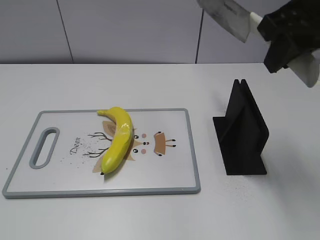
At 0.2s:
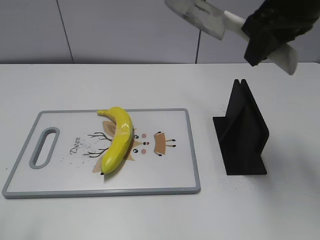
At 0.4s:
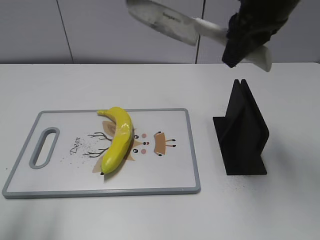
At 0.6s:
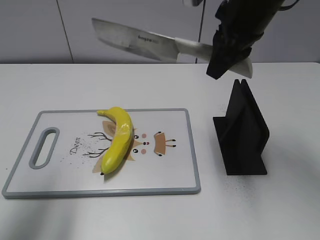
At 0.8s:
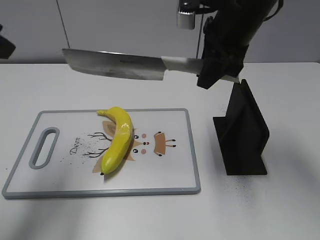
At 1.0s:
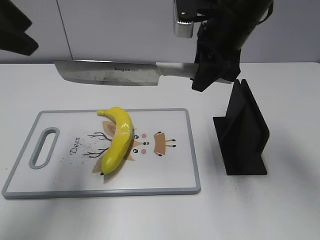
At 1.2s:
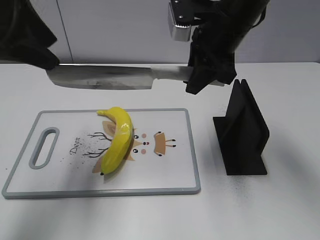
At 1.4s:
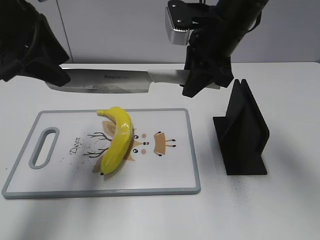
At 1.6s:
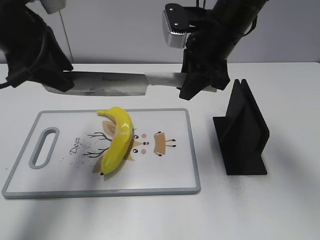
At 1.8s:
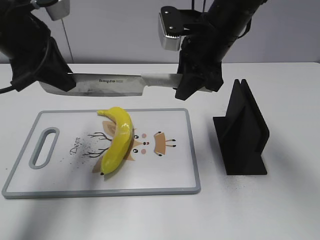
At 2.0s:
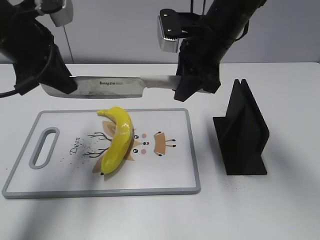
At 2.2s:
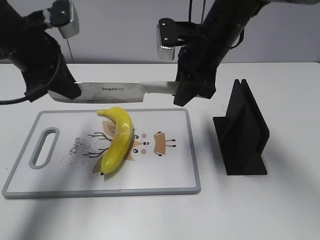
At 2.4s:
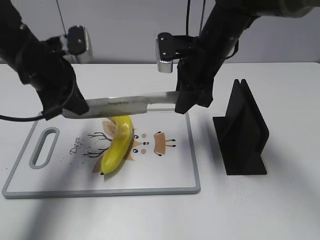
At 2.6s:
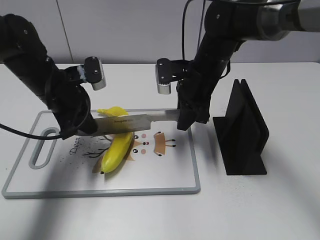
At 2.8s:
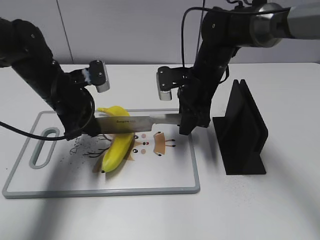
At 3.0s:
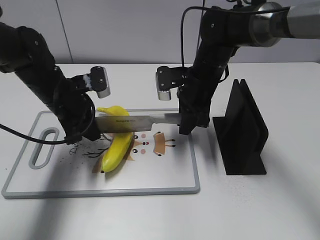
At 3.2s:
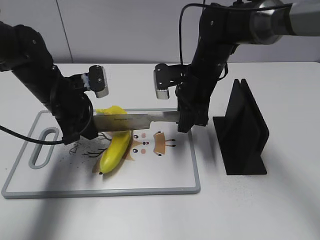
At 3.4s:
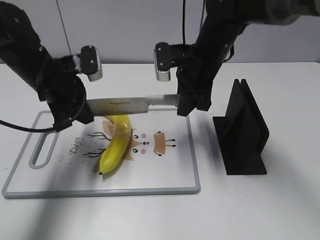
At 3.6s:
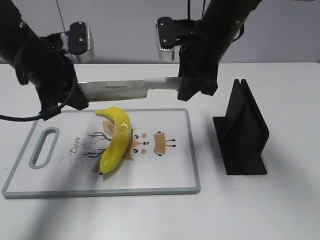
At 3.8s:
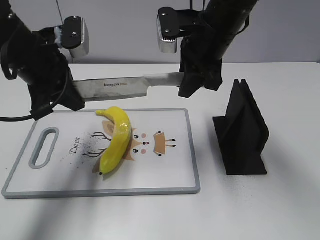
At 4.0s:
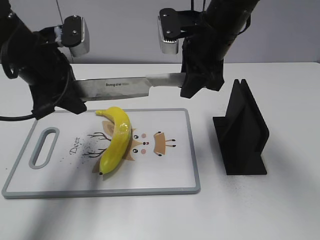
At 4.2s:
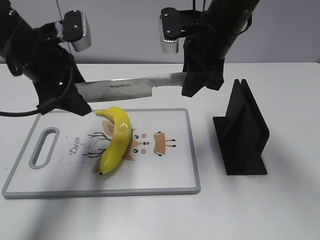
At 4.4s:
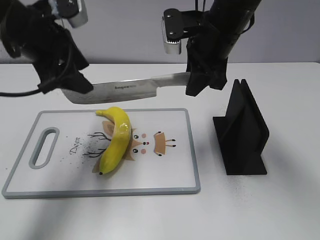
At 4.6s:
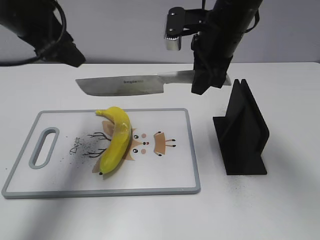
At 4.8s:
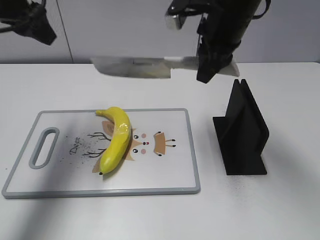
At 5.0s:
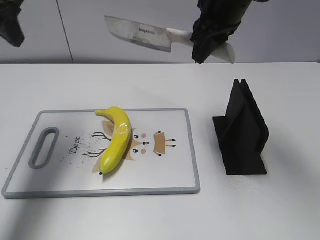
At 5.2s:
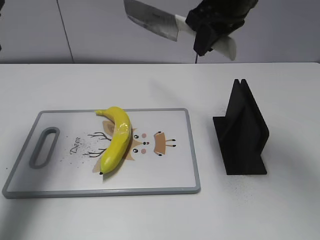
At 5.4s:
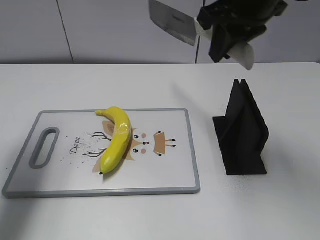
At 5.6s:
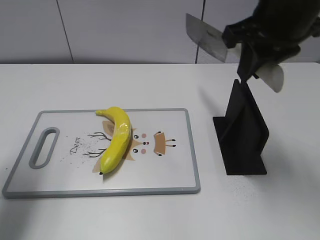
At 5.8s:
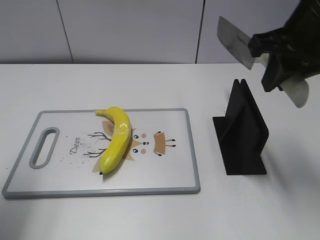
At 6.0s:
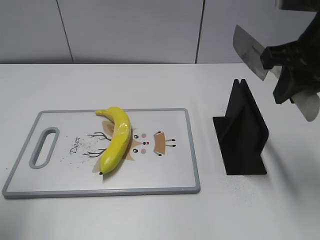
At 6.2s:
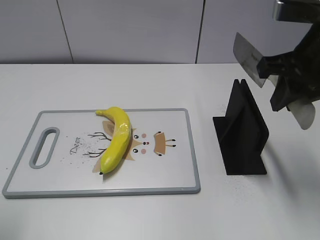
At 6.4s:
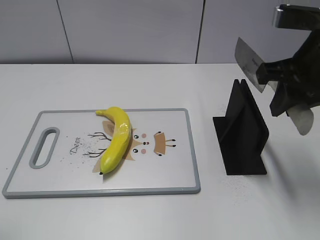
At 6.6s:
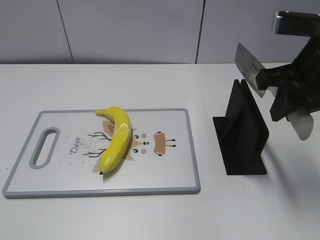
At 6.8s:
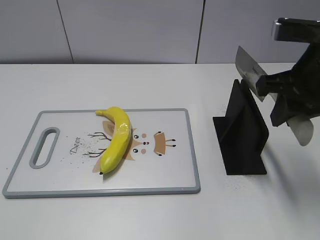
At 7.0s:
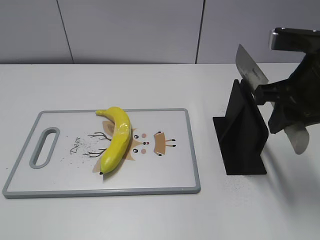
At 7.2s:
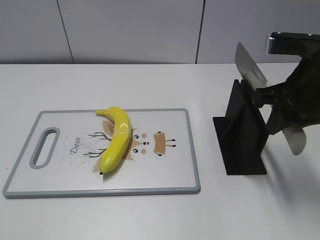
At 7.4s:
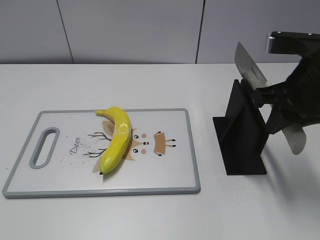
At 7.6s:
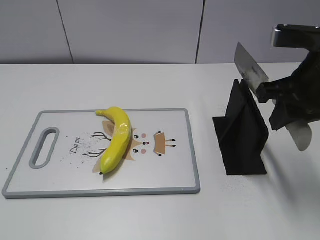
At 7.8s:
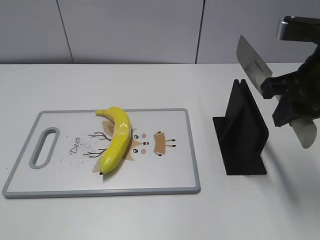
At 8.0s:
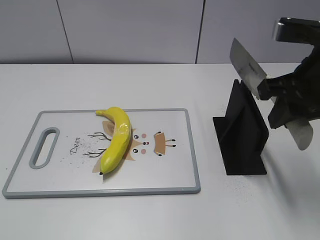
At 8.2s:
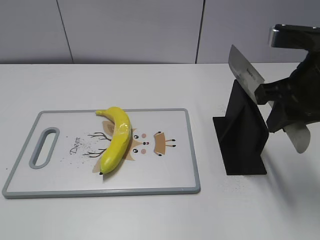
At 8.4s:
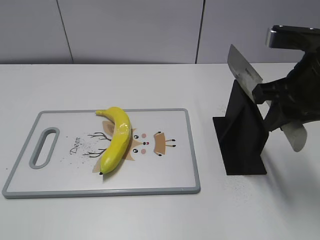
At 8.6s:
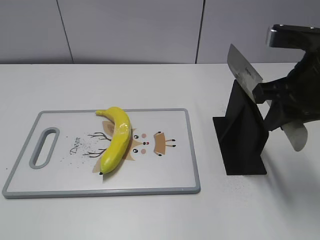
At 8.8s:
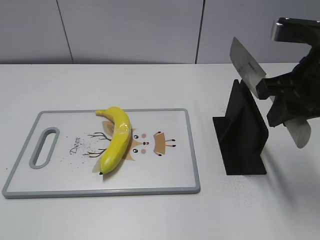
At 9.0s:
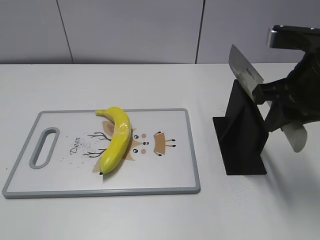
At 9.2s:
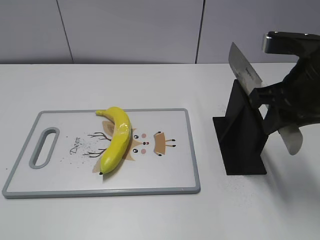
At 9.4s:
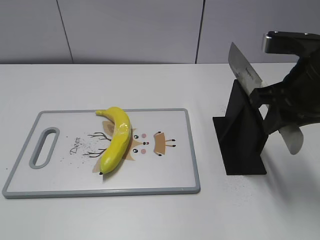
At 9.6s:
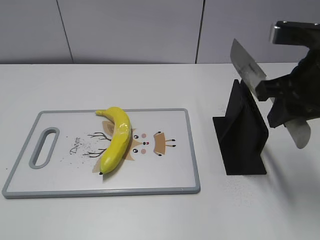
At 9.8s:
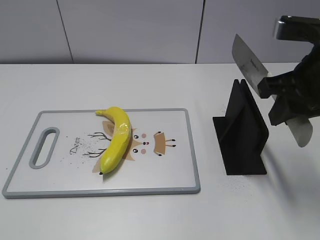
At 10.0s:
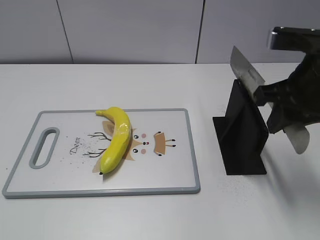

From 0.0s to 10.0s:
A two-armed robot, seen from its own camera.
Task of the whole recording: cut plastic banana.
Step, from 0.0s to 3.6s: Lift the knife with your right hand.
Step, from 3.8s to 5.0s: Cut the banana with your right hand.
Step, from 5.2s to 6.6s: Lift the knife with your right hand.
From 0.0s to 1.4s: The right gripper goes roughly 15 cm downward, forward and to the left, while the left gripper travels forward by about 30 cm.
From 1.4s to 2.8s: The grippers both shift downward by some 15 cm. The left gripper closes.
From 2.8s to 4.2s: The grippers both shift upward by some 10 cm. The left gripper opens up.
From 4.2s to 5.8s: The right gripper travels backward, to the right and upward by approximately 15 cm, while the left gripper moves to the left, backward and upward, about 20 cm.
From 5.8s to 7.2s: The left gripper goes roughly 20 cm backward, while the right gripper shifts some 5 cm downward.
From 7.2s to 8.6s: There are only small adjustments of the grippers.
From 8.6s to 10.0s: The two grippers keep their place.

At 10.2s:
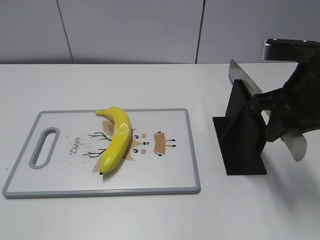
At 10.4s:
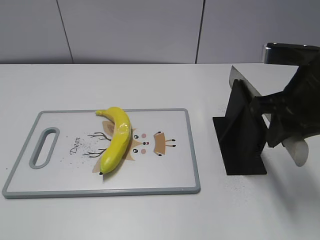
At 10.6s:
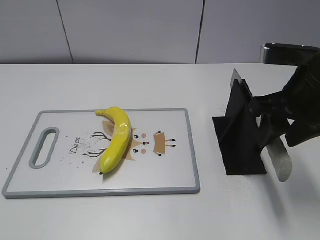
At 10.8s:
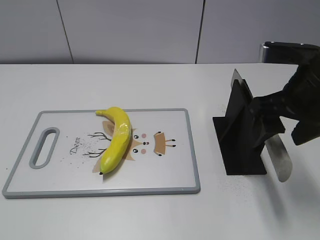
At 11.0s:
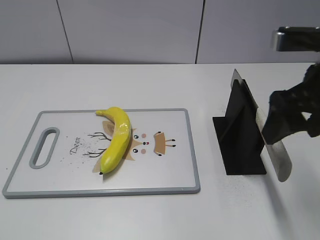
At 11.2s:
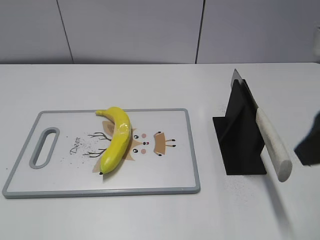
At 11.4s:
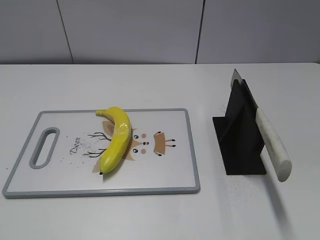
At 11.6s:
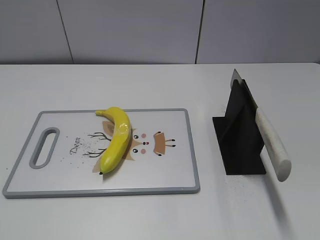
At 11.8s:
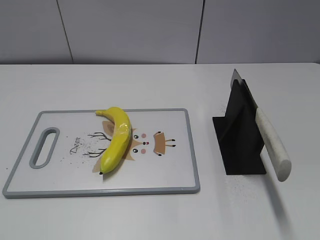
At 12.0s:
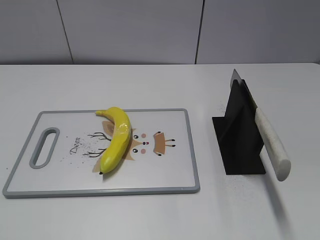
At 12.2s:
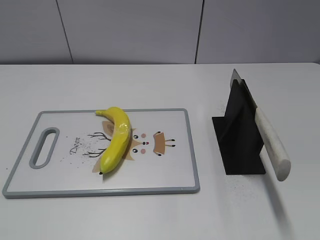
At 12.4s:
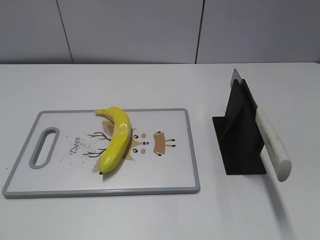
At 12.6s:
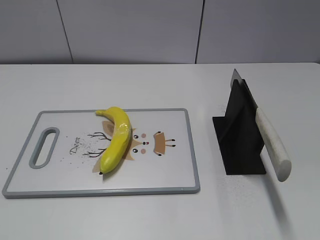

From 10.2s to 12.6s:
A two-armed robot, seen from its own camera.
Task of the whole recording: cut plastic banana.
Step, from 10.2s to 12.6s: Place the knife on the storage rack with your right hand.
From 10.2s to 11.4s: The right gripper heads backward, covering roughly 15 cm, and opens.

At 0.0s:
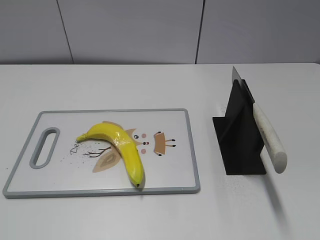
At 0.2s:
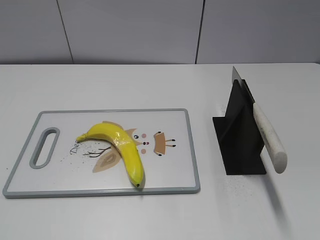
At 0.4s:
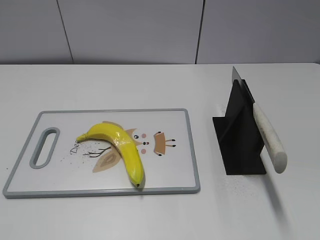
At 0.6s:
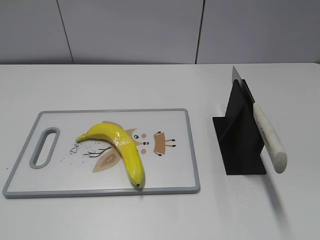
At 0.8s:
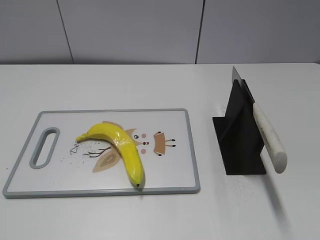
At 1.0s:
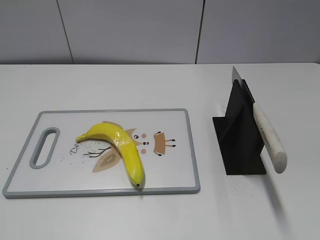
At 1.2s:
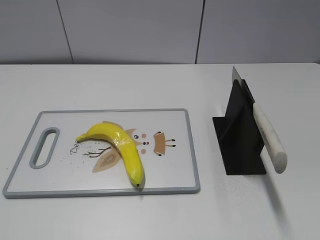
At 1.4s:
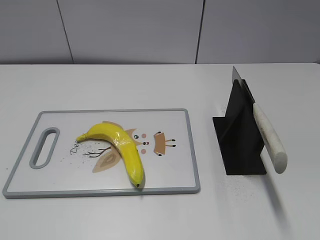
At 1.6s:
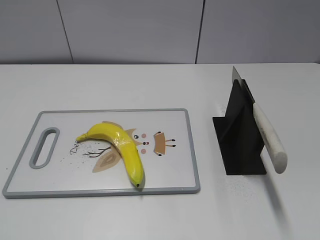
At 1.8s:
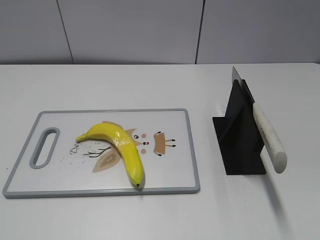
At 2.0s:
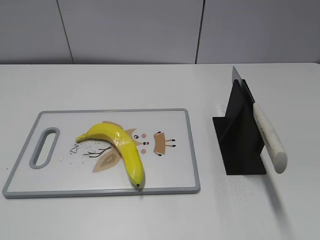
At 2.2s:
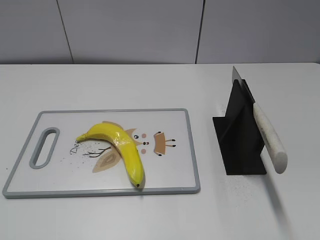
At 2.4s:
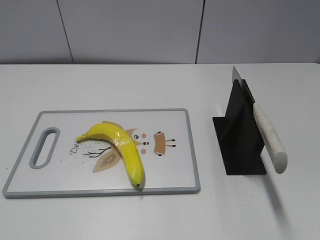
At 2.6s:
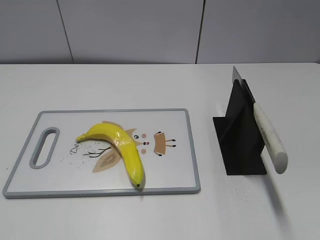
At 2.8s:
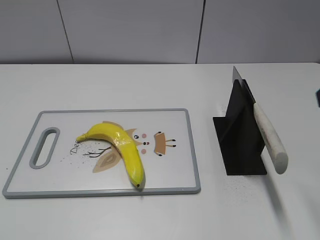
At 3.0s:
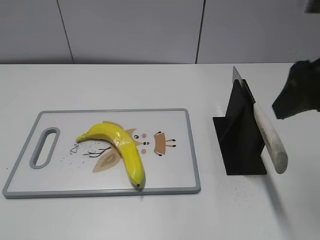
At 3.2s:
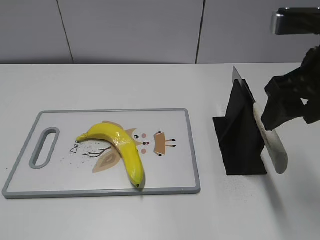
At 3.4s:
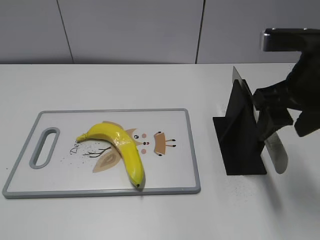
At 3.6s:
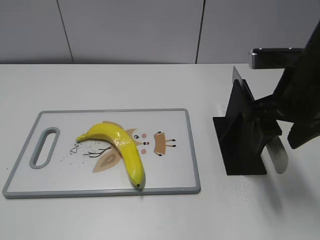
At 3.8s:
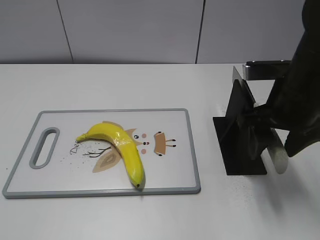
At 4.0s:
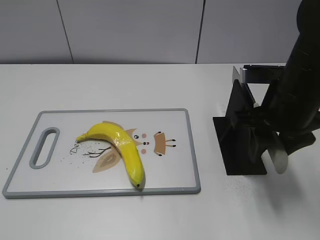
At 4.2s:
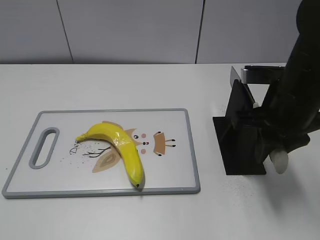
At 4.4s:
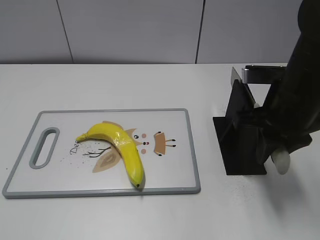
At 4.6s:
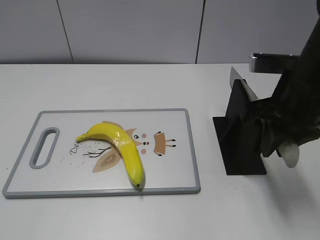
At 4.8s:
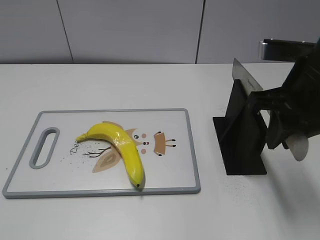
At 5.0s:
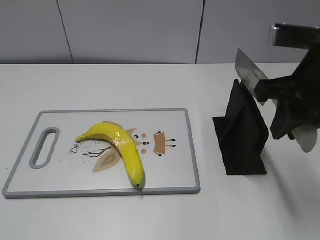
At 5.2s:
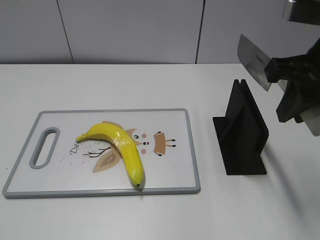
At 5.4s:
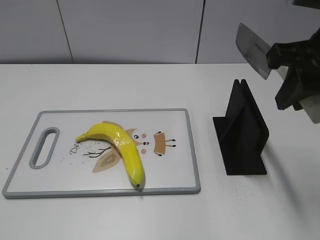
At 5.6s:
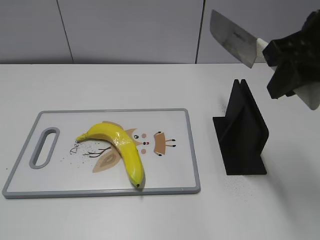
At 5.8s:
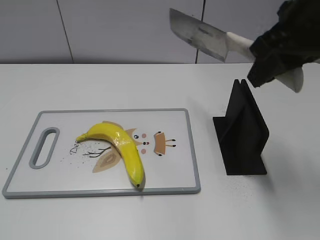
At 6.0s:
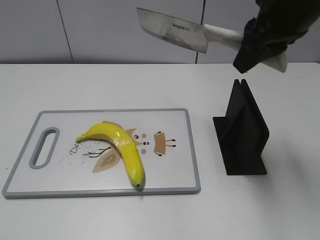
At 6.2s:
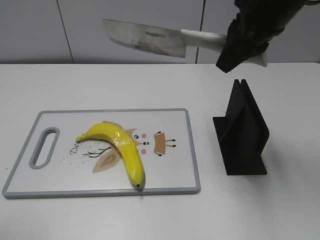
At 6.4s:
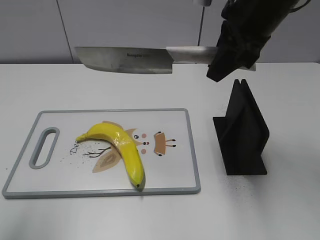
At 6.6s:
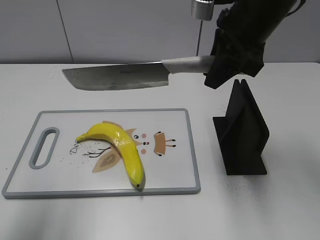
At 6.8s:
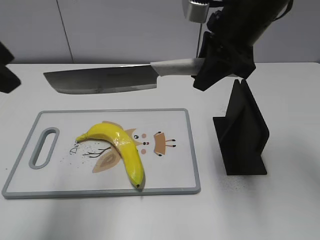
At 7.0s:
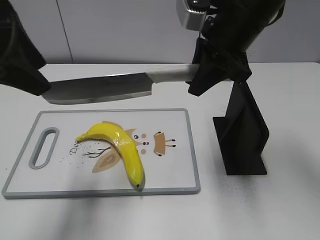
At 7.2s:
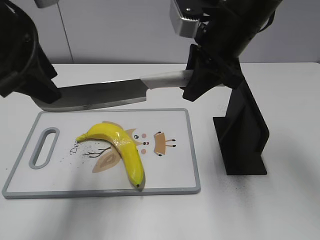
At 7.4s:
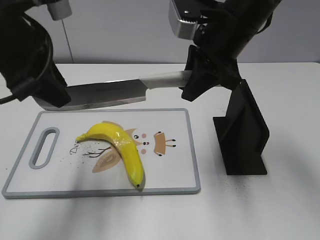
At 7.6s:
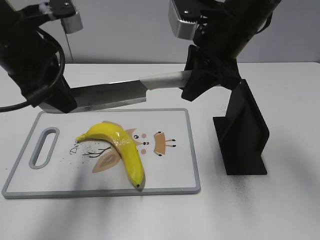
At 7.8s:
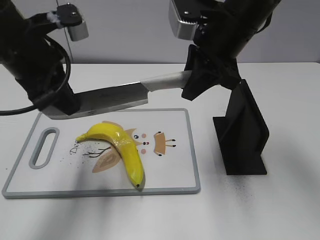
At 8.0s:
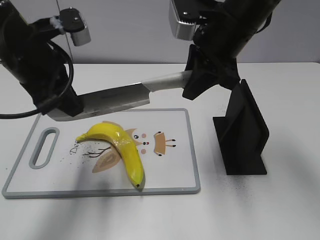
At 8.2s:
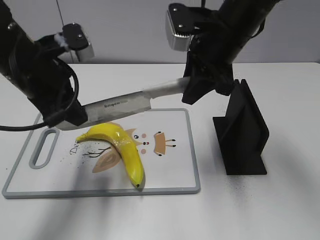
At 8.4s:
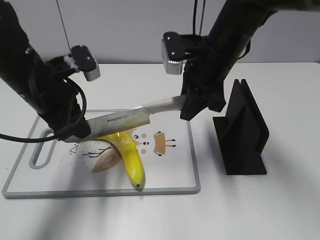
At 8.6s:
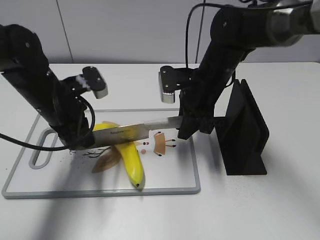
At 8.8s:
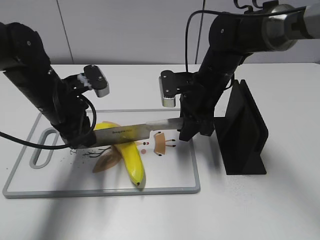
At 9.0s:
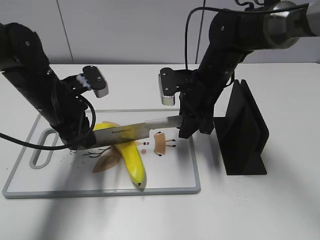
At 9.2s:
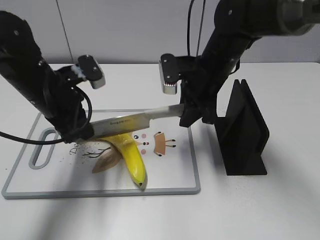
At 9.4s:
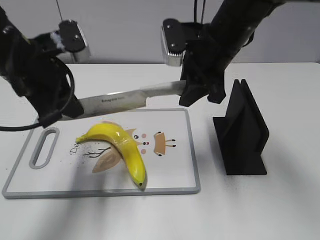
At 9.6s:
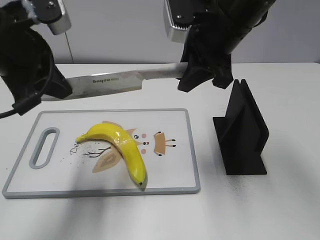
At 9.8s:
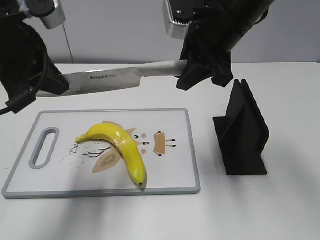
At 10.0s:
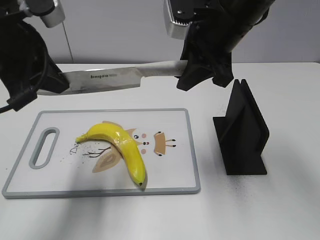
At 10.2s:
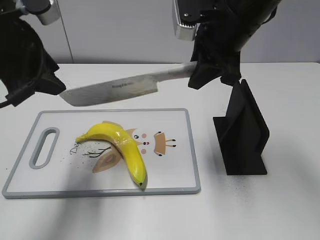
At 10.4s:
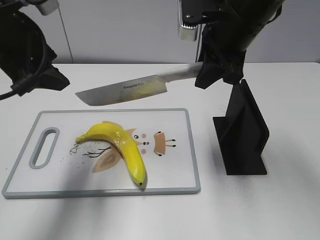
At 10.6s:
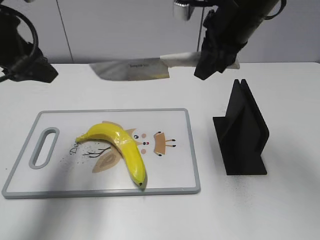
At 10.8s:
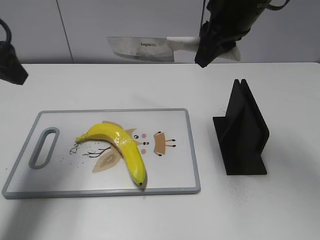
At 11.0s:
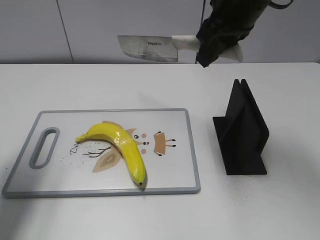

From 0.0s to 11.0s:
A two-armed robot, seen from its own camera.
Task of the whole recording: cut plastic banana.
Step, from 0.0s to 5.2s: Grab the knife handle with your right hand.
Step, from 5.4s to 9.6s: Lift the knife with your right hand.
From 1.6s to 3.2s: The right gripper is displaced forward and to the left by some 25 cm.
From 3.2s to 4.8s: The right gripper closes its fingers.
From 4.8s to 6.2s: The left gripper shifts about 10 cm forward and upward; the right gripper heads upward and forward, covering roughly 10 cm.
From 6.2s to 7.8s: The right gripper goes roughly 5 cm downward. Meanwhile the left gripper shifts some 25 cm forward and to the right, and closes up.
From 7.8s to 9.4s: The right gripper moves roughly 15 cm downward and comes back. The left gripper reaches some 10 cm downward, then returns.
From 9.4s to 11.0s: The left gripper is displaced to the left and upward by about 15 cm, and opens. The right gripper is displaced upward by roughly 10 cm.
